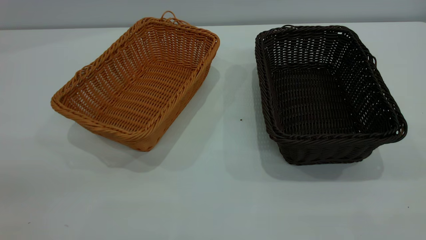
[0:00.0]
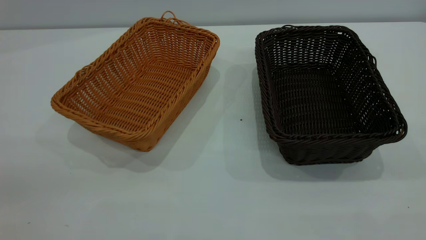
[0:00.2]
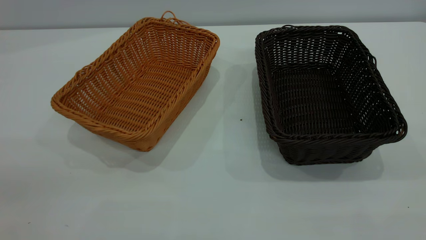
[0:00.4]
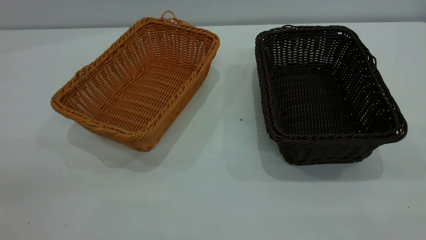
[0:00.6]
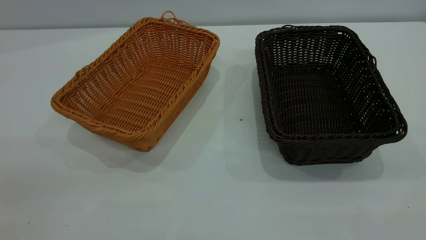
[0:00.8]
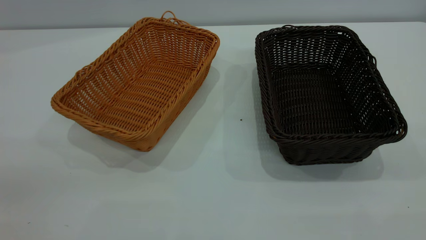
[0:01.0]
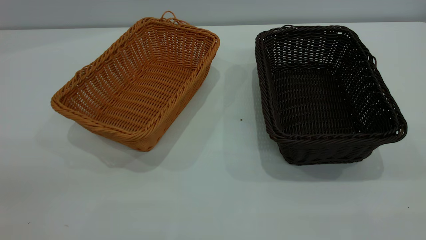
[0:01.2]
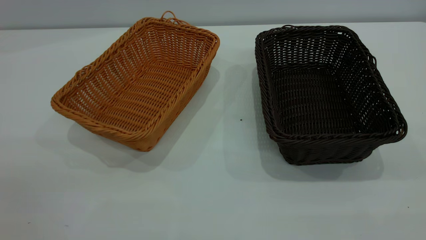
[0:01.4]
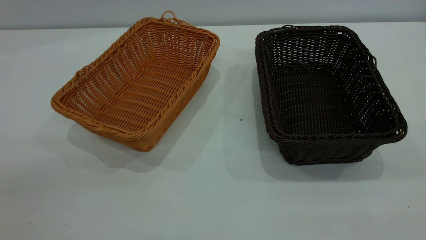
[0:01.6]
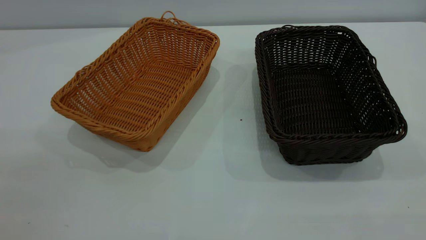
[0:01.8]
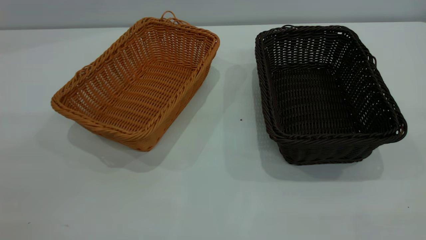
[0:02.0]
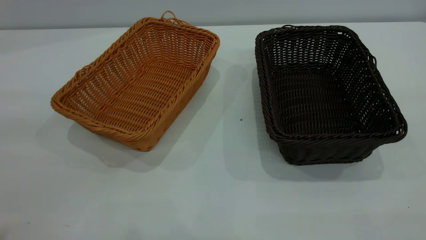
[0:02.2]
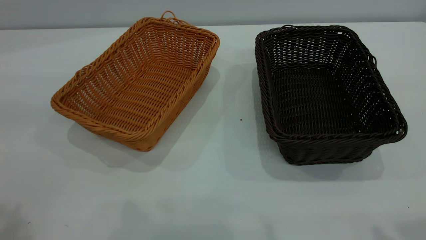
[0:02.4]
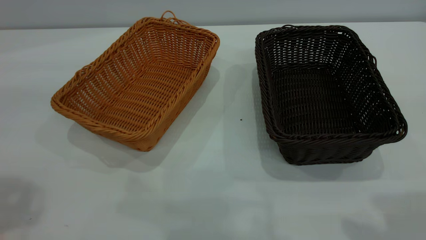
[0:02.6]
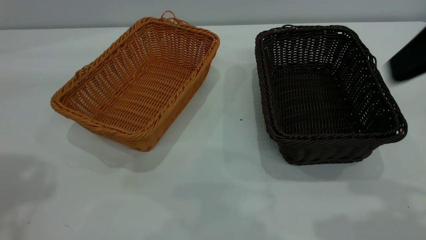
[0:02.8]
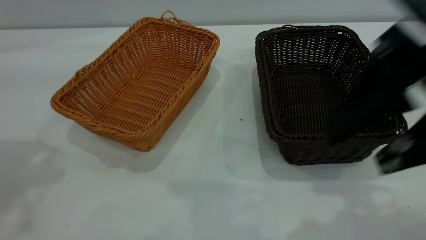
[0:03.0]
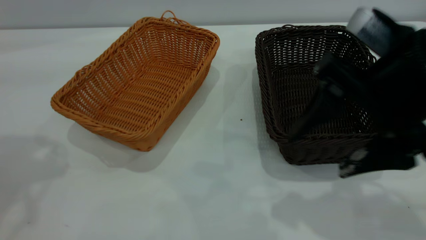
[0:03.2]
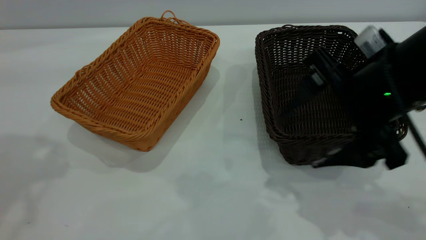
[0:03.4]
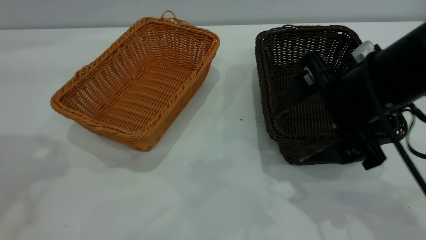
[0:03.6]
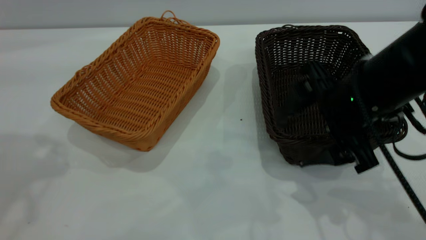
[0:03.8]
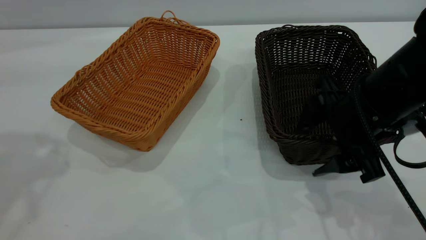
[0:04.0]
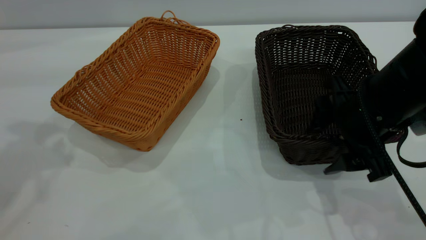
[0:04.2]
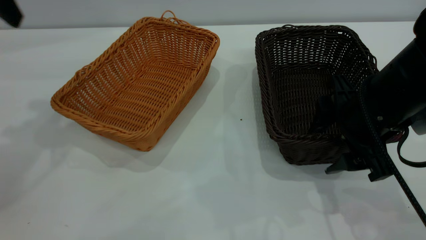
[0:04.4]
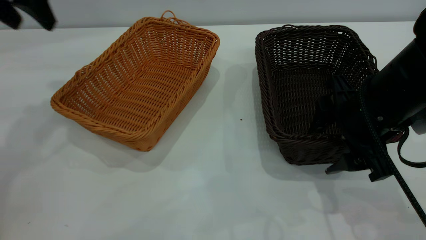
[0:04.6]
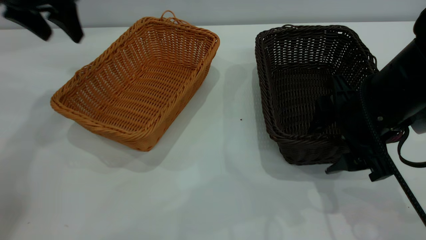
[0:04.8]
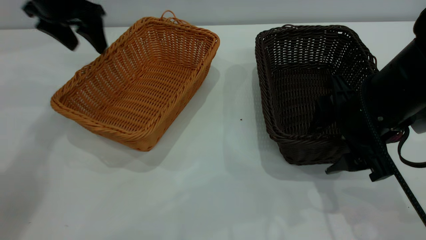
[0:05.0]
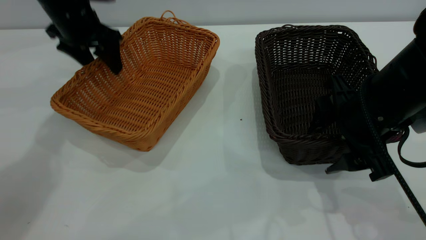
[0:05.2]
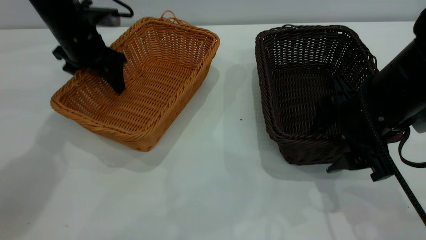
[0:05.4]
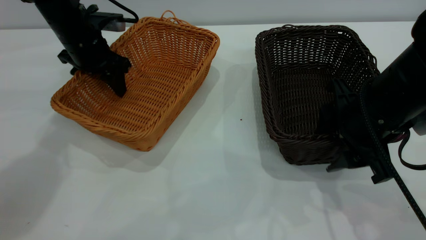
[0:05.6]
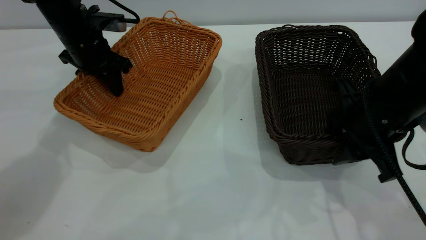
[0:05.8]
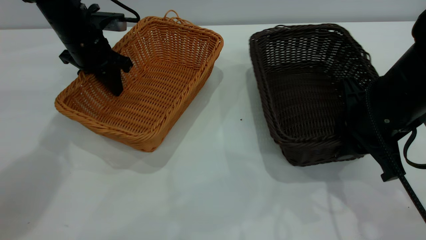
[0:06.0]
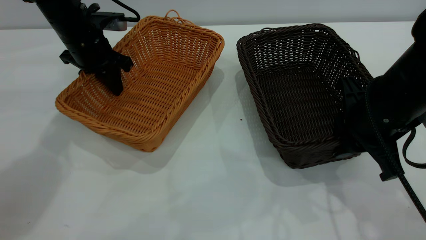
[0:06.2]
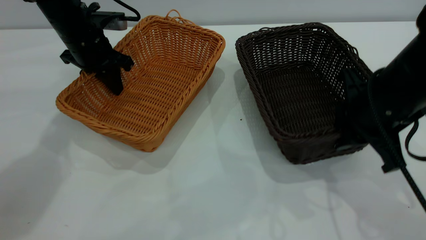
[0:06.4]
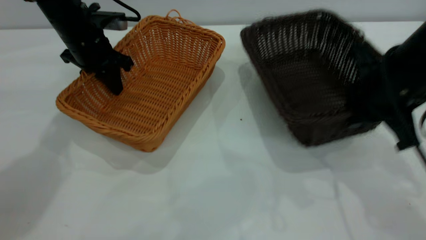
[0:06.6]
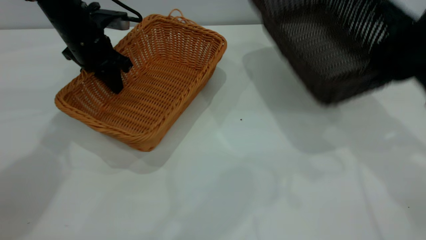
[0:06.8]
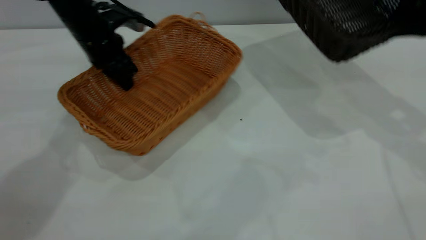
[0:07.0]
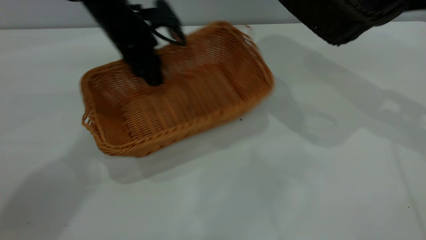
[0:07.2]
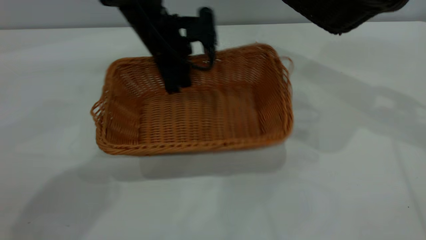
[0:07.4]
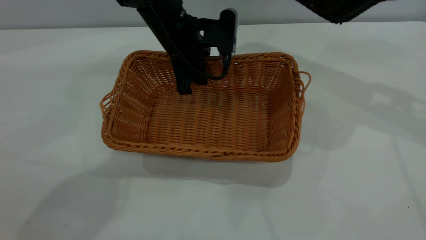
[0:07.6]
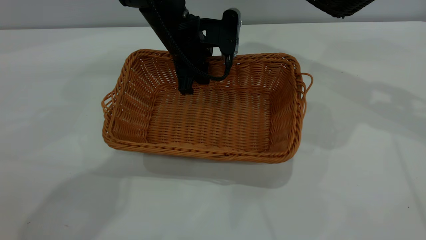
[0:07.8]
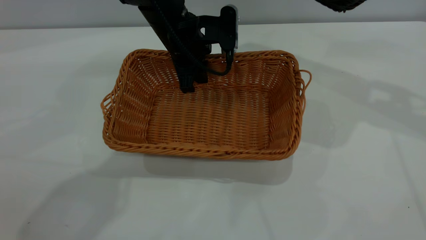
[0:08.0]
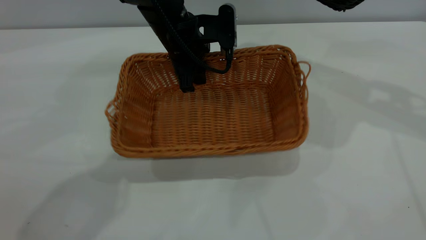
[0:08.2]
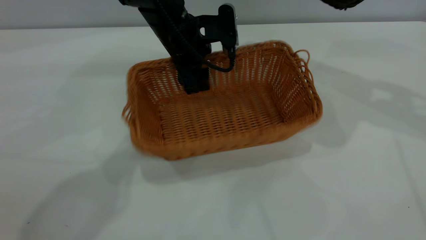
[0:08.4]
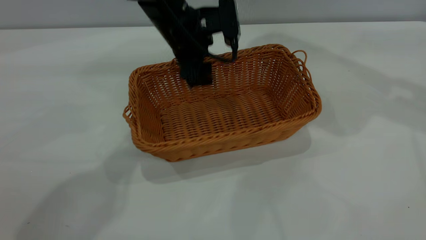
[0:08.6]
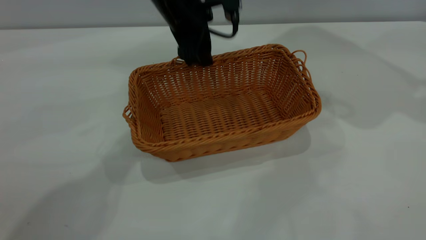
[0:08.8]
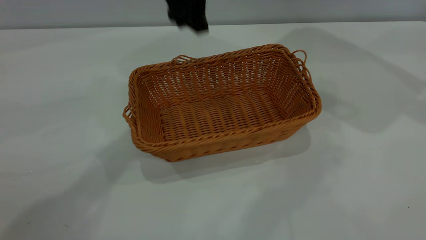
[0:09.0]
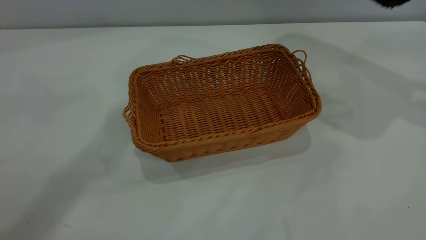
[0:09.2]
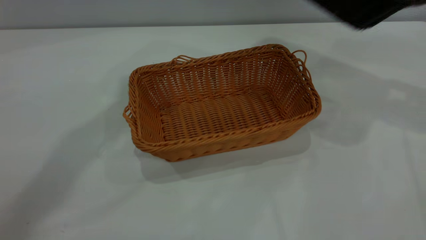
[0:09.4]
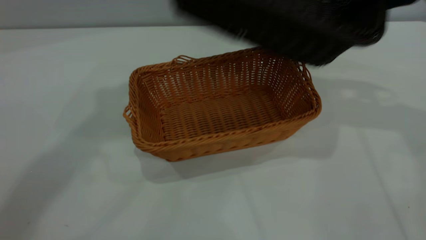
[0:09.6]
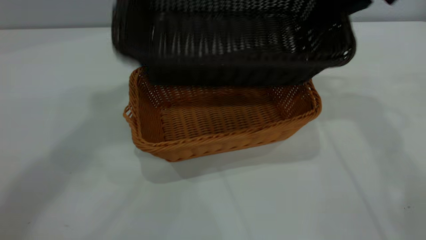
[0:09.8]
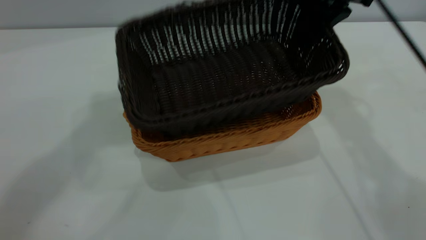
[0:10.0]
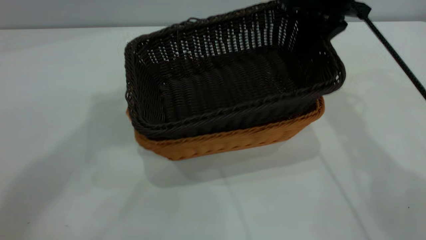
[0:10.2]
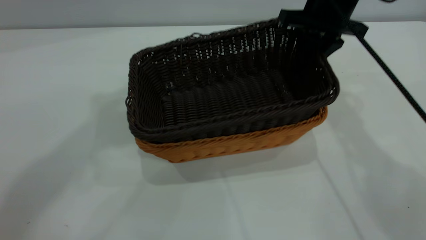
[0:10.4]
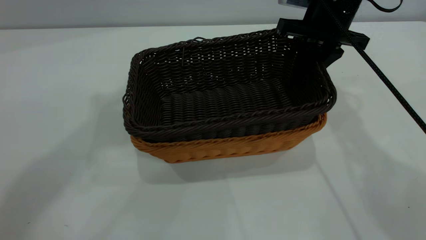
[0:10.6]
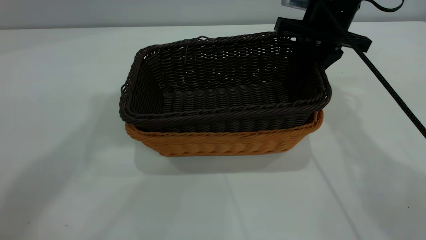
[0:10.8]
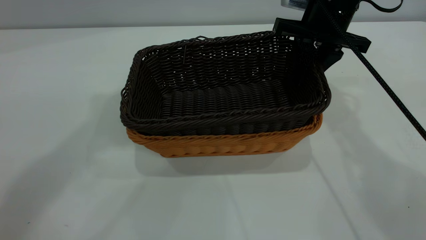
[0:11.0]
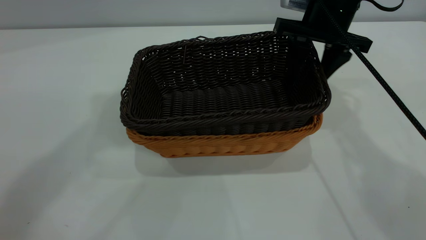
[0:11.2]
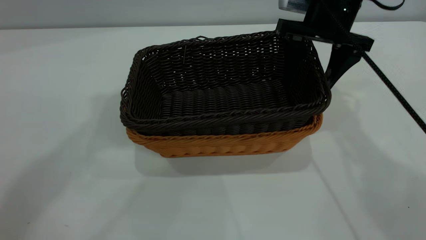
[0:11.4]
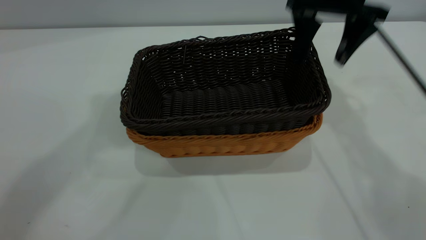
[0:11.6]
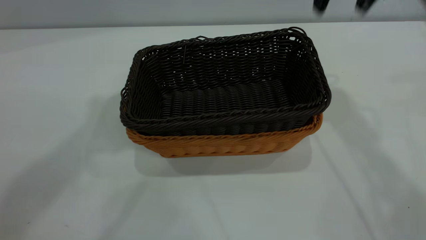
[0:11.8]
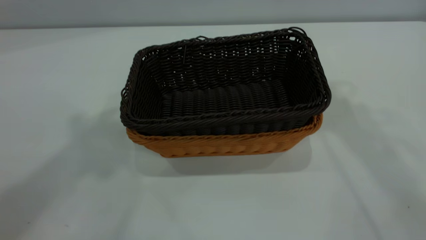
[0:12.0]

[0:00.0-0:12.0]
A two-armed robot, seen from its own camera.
Task of the whole recording: the left gripper grasp the brown basket and place it in the center of the table, the right gripper grasp the black basket and place it inside the brown one.
Step, 0:00.0 to 0:06.6: Pick up the light basket with the right gripper.
Step, 0:06.8 to 0:08.6: Place the light-colored basket in the center.
Step, 0:09.0 to 0:11.6: Place the dark basket on top of the light basket.
0:00.0 to 0:01.6: The two grippers keep their place.
0:01.6 to 0:03.0: The right gripper travels forward, downward and to the left by approximately 25 cm.
0:03.0 to 0:04.4: The left gripper heads forward and downward, covering roughly 10 cm; the right gripper moves downward and forward, about 15 cm.
0:04.4 to 0:06.0: The left gripper is displaced downward and forward by some 20 cm, and closes its fingers. The right gripper closes its fingers.
0:06.0 to 0:07.6: The left gripper is displaced to the right by some 15 cm; the right gripper shifts some 25 cm upward, to the right and forward.
0:07.6 to 0:09.0: The right gripper travels to the right by about 10 cm, while the left gripper heads upward, covering some 15 cm, and opens.
0:09.0 to 0:10.4: The left gripper travels upward and to the left by approximately 30 cm, while the right gripper moves to the left and downward, about 25 cm.
0:10.4 to 0:12.0: The left gripper moves backward, about 5 cm. Meanwhile the right gripper goes approximately 25 cm upward, and opens up.

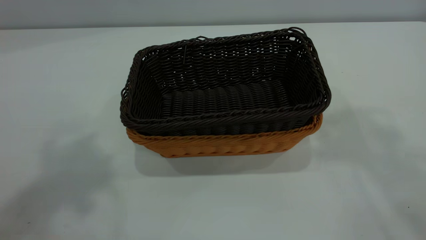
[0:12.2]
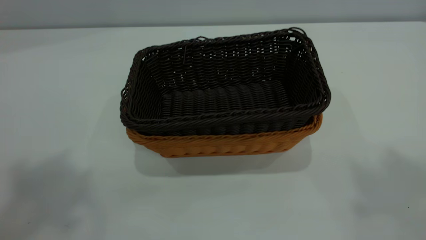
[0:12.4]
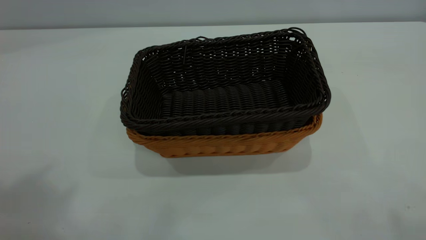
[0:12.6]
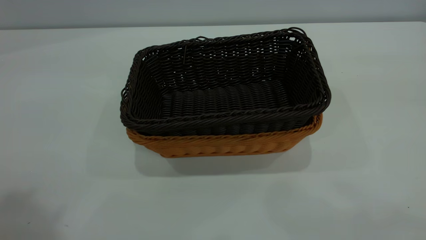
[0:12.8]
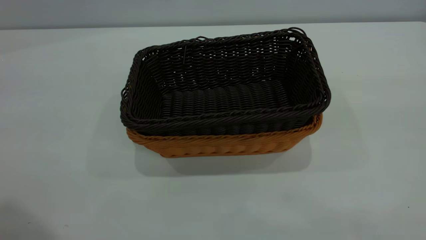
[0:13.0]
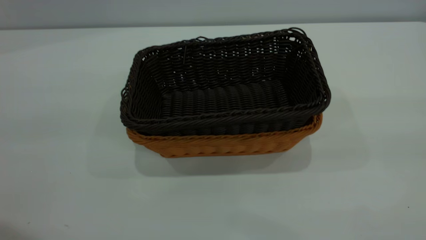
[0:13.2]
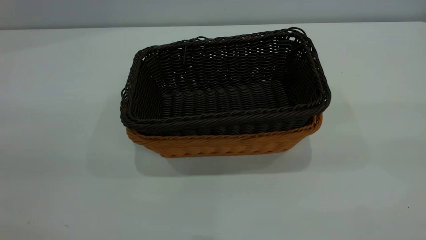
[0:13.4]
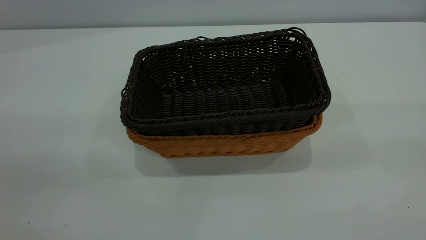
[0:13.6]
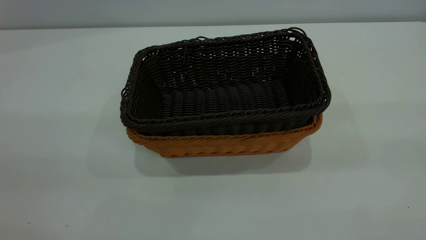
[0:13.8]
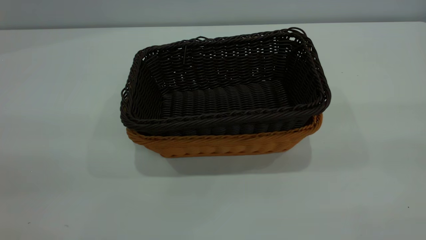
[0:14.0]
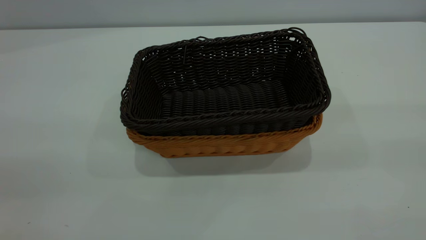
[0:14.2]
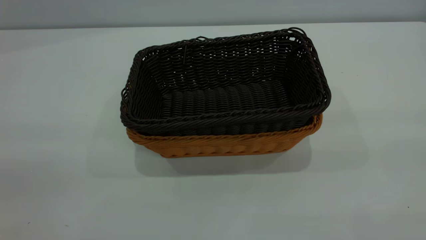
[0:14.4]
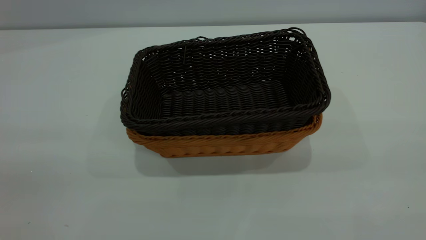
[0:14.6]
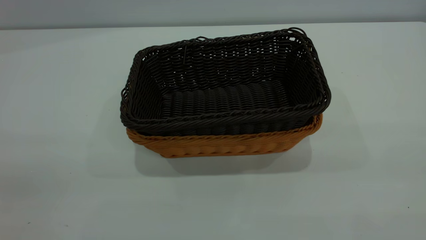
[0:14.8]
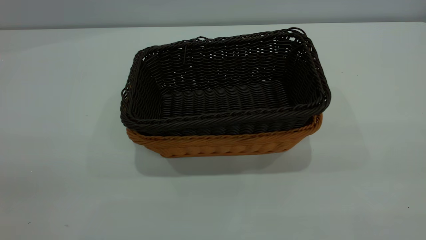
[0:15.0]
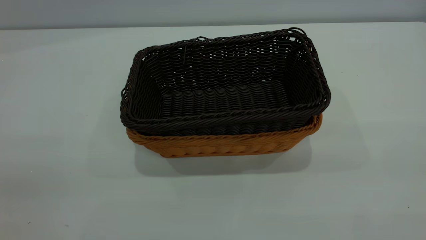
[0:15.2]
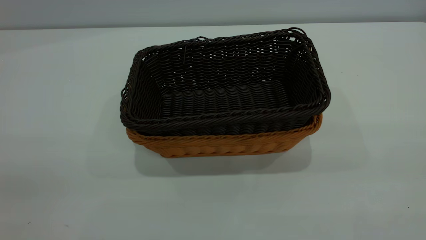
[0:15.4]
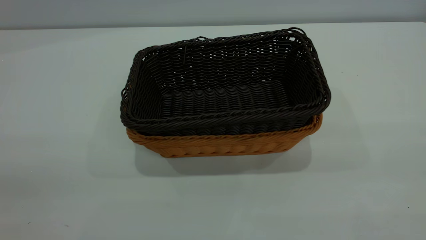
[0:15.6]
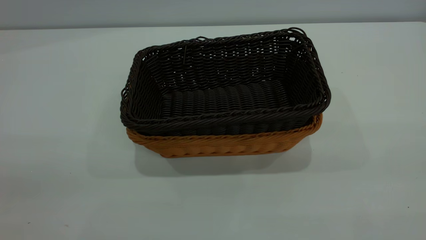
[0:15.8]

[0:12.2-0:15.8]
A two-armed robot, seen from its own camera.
Task of the whole recording: the left gripper grasp the brown basket and place it in the center of the table, the right gripper grasp the black basket and place it inside the brown one.
0:12.2 to 0:14.0: The left gripper travels downward and backward by some 30 cm.
